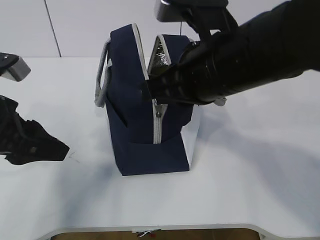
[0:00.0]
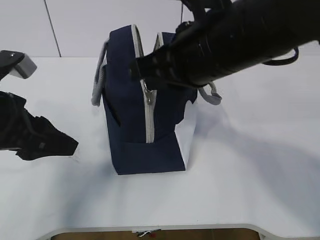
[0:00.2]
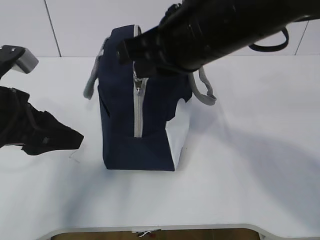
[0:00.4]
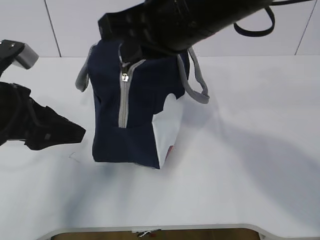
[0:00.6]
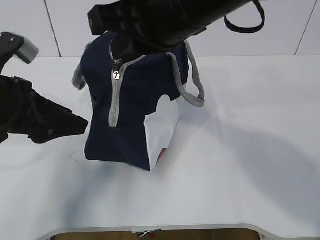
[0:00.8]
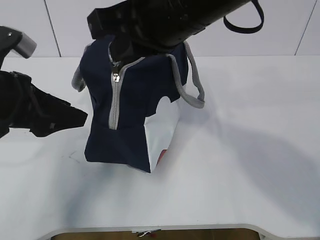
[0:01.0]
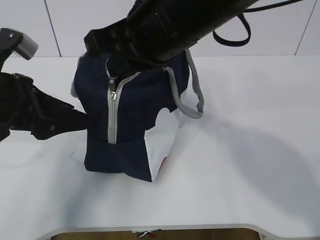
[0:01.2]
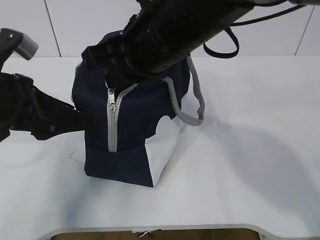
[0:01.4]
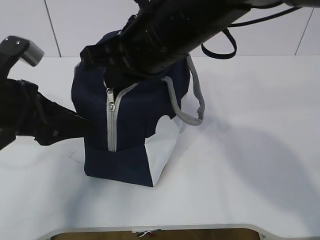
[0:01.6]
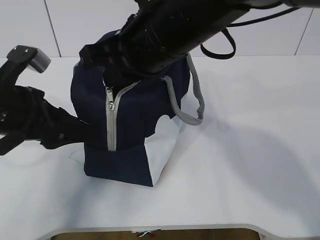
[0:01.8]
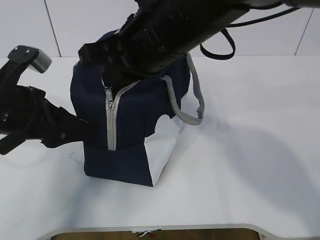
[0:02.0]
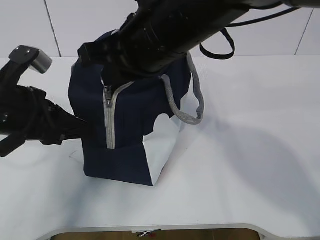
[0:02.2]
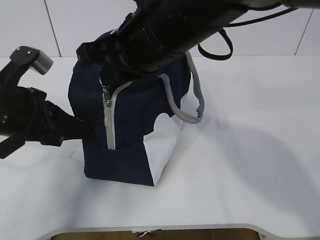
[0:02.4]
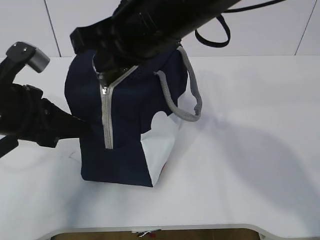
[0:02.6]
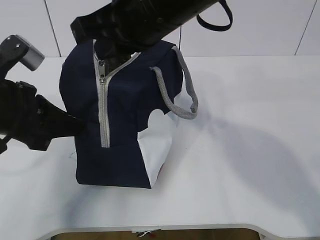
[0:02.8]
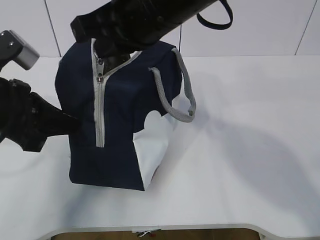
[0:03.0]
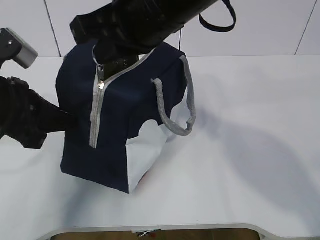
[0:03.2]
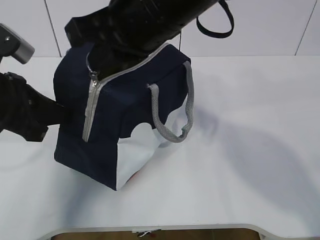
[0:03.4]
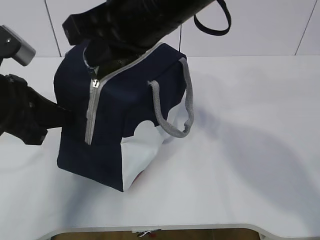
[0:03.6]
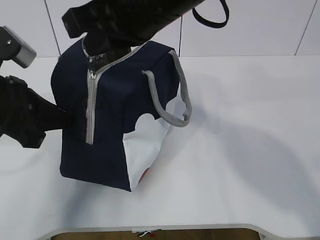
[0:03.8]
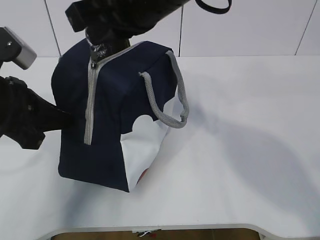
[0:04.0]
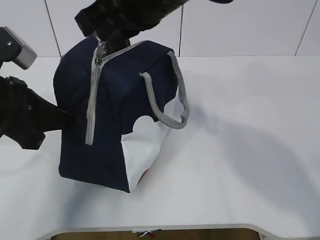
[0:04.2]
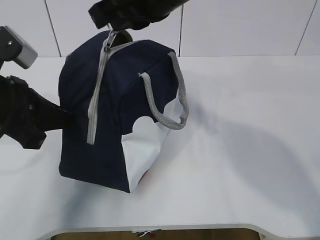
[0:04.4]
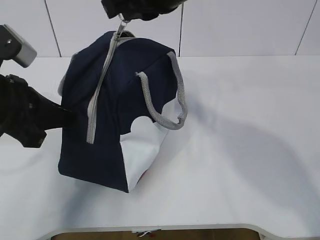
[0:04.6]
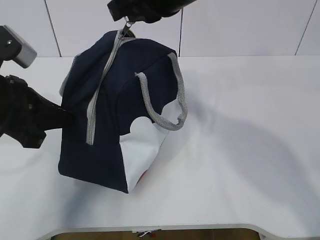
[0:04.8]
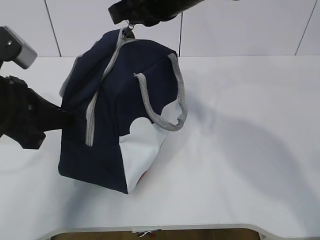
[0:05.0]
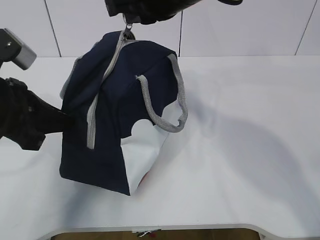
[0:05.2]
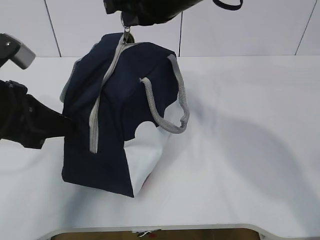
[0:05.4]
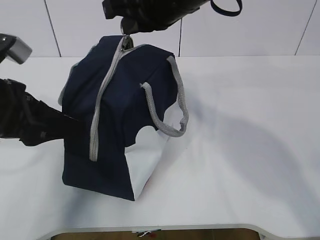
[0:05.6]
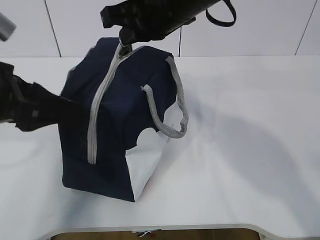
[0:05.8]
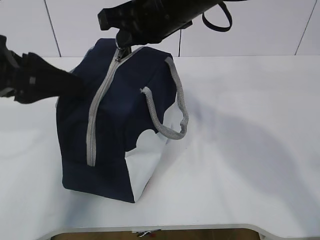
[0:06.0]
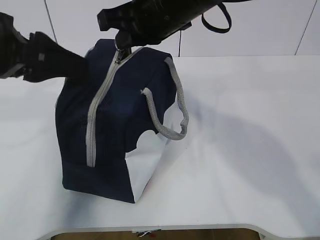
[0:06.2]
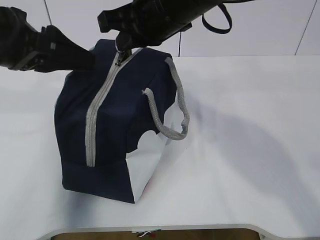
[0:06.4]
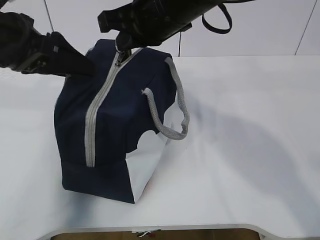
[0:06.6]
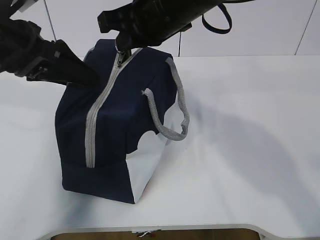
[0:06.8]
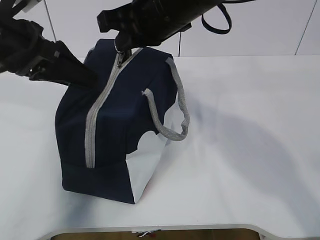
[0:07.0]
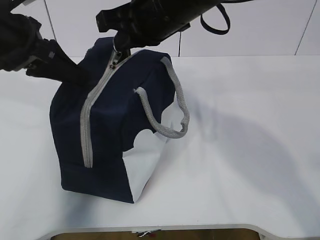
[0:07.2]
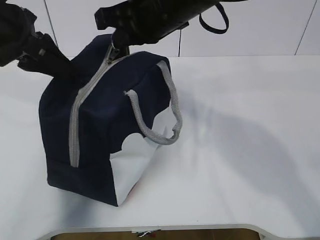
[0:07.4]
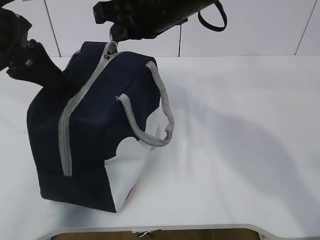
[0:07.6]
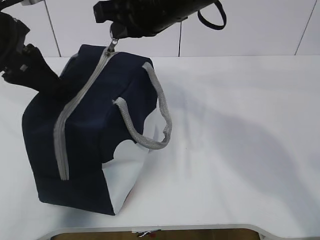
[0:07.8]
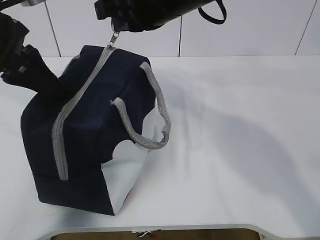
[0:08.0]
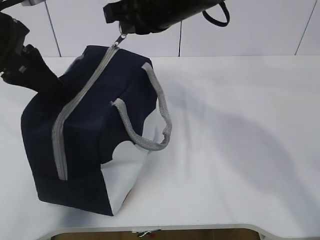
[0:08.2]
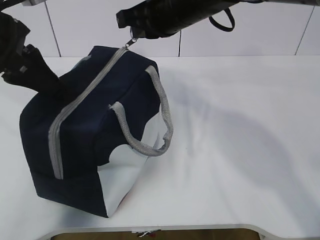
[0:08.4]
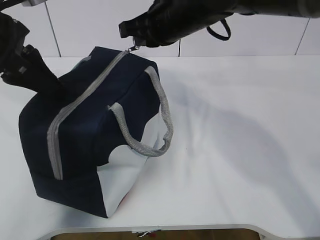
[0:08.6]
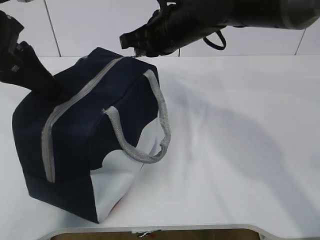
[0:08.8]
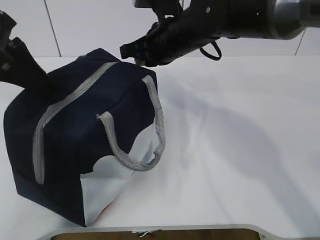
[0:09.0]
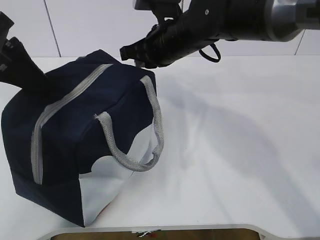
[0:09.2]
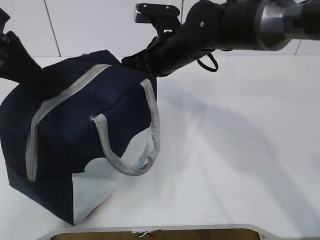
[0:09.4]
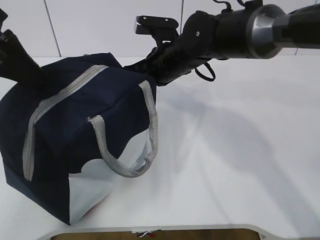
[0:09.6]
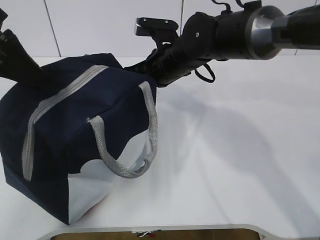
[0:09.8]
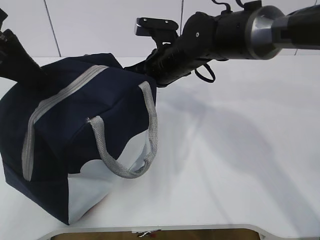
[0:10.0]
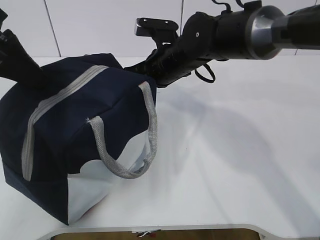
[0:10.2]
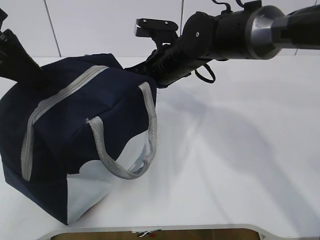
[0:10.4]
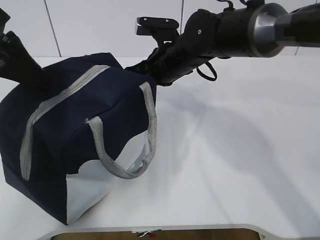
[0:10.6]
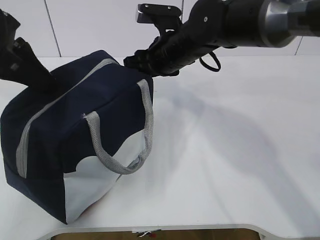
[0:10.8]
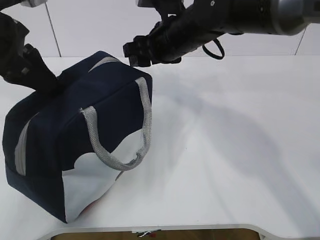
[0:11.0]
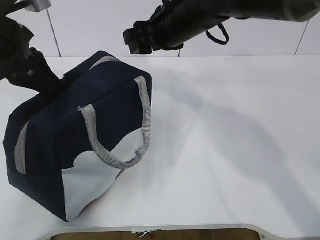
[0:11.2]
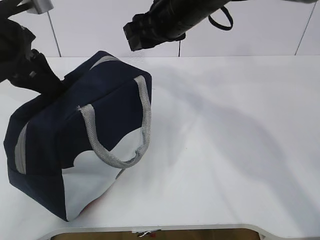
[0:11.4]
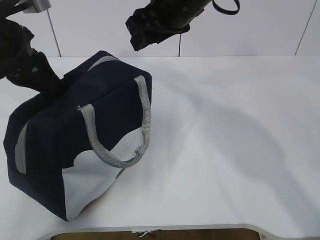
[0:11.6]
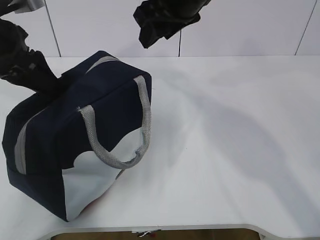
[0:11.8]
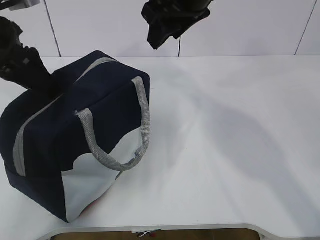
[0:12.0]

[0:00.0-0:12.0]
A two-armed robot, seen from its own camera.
Step, 0:00.8 to 0:01.8: Grab the lunch bag with your left hand.
0:00.0 to 0:01.6: The right gripper goes roughly 5 cm to the left.
0:01.6 to 0:03.0: The left gripper closes its fingers.
0:03.0 to 0:04.4: The grippers make only small movements.
0:04.4 to 0:06.0: The left gripper moves upward, roughly 5 cm, and opens up. Meanwhile the right gripper moves some 5 cm.
0:06.0 to 0:07.6: The left gripper shifts approximately 5 cm forward, and closes up.
0:07.6 to 0:09.0: The right gripper heads downward and forward, covering some 10 cm.
0:09.0 to 0:10.4: The right gripper moves about 5 cm.
0:10.4 to 0:12.0: The left gripper opens up, while the right gripper is displaced upward by some 15 cm, and opens.

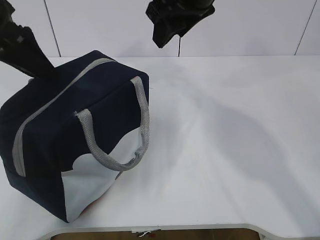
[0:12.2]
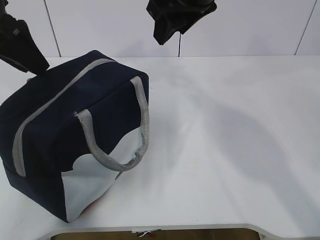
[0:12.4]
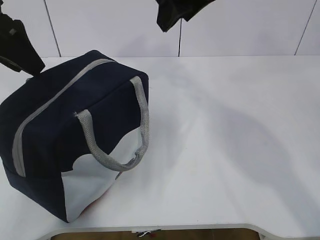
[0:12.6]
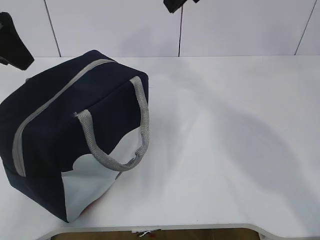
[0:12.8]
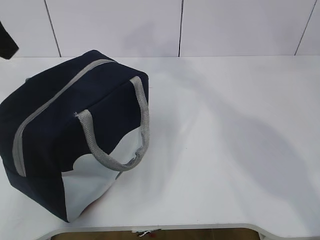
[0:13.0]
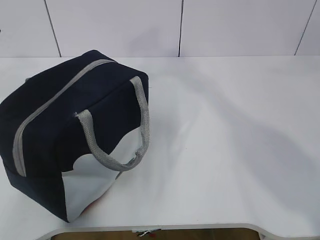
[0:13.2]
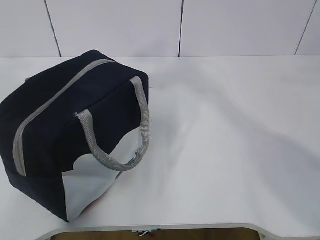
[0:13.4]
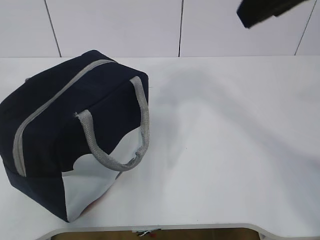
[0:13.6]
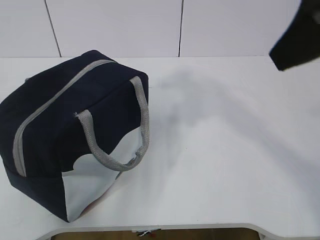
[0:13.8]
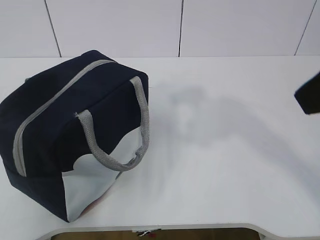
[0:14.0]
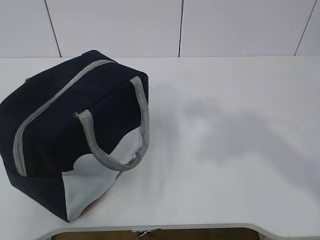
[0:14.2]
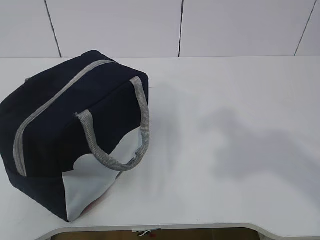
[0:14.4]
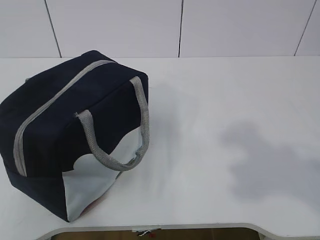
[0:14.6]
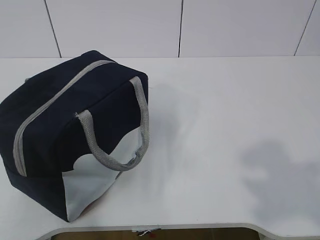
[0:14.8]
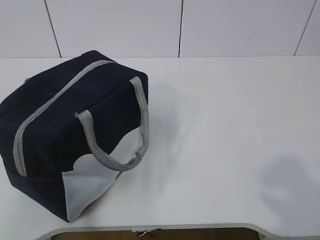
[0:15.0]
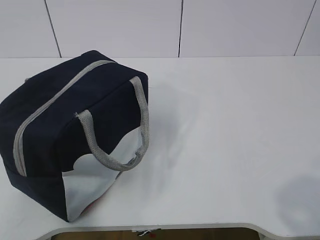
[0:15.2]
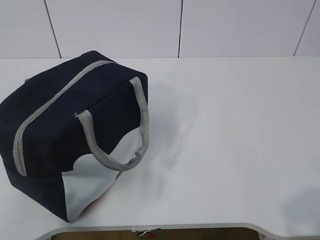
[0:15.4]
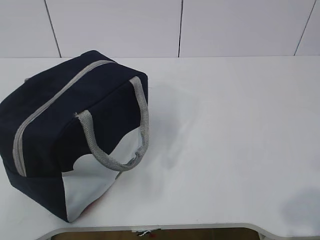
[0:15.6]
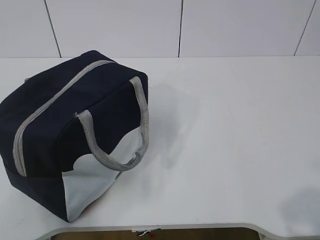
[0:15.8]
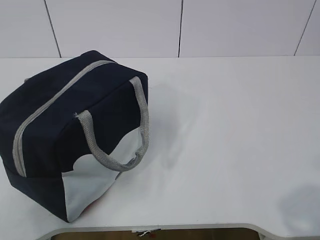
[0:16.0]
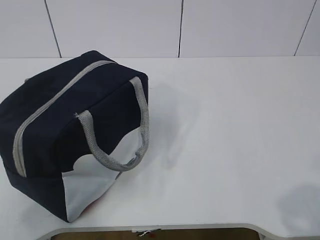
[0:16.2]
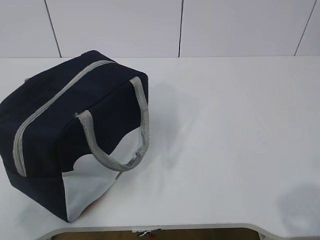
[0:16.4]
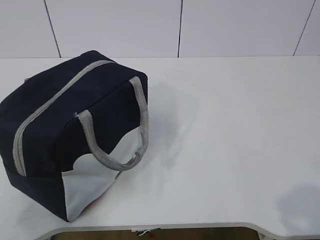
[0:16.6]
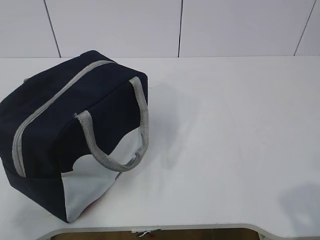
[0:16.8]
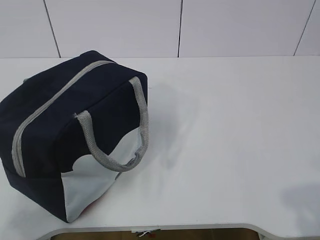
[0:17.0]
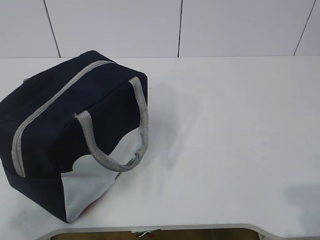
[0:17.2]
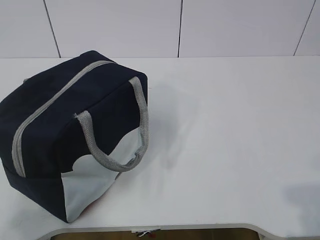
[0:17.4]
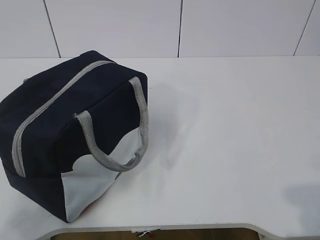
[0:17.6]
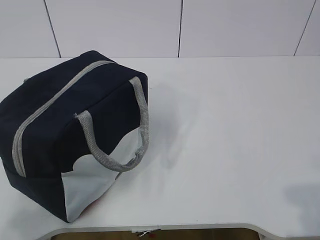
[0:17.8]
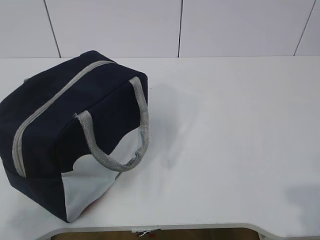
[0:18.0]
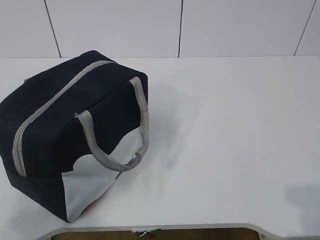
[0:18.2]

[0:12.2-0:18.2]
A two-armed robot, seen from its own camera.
0:12.2 to 0:13.8: The left gripper goes approximately 20 cm backward and upward, while the right gripper travels backward and to the right by some 20 cm.
0:13.8 to 0:15.2: The right gripper moves backward, to the right and downward, approximately 25 cm; the left gripper shifts some 20 cm backward and downward.

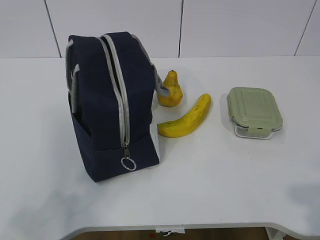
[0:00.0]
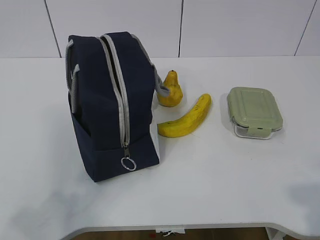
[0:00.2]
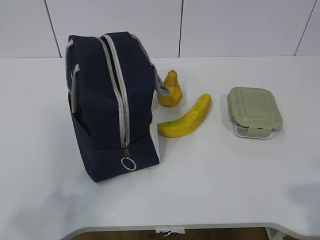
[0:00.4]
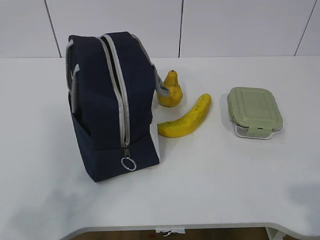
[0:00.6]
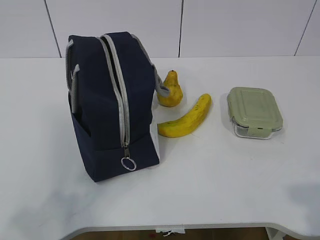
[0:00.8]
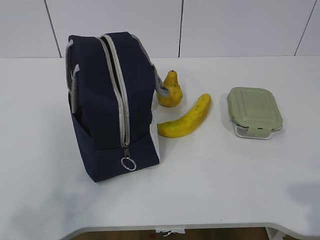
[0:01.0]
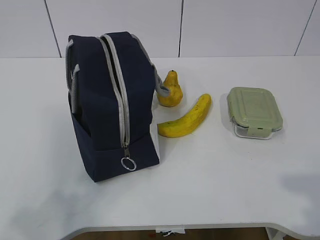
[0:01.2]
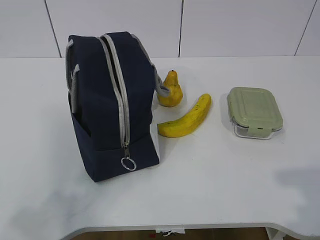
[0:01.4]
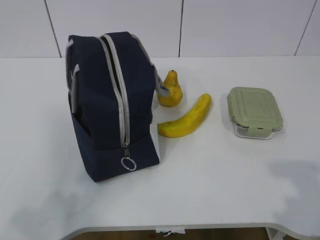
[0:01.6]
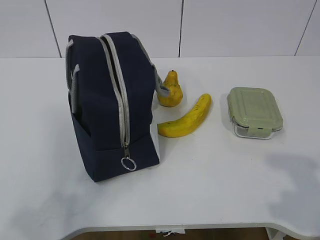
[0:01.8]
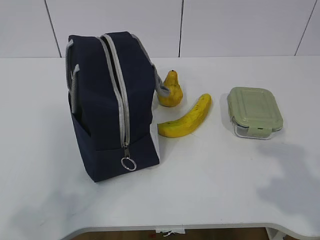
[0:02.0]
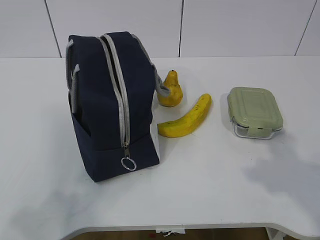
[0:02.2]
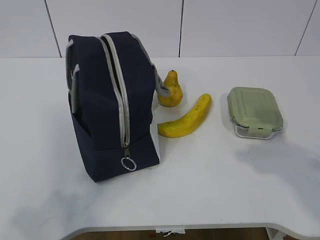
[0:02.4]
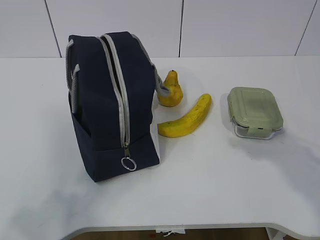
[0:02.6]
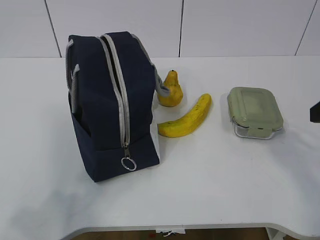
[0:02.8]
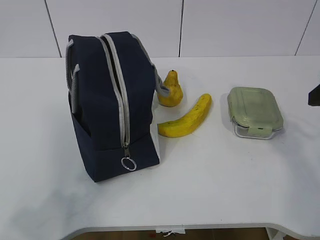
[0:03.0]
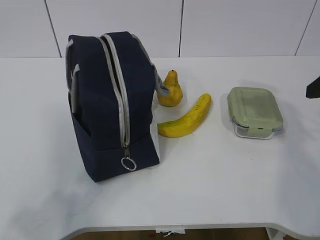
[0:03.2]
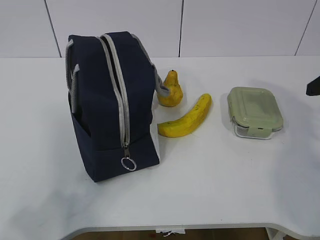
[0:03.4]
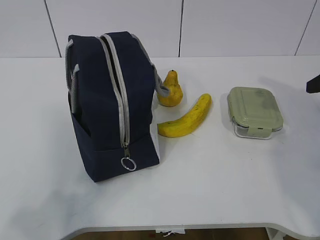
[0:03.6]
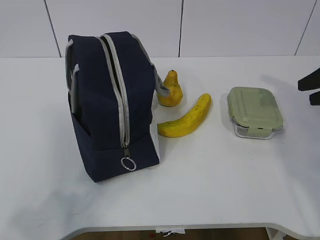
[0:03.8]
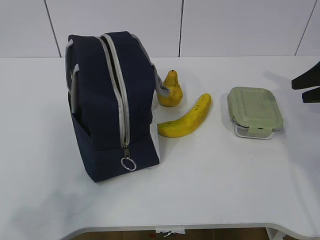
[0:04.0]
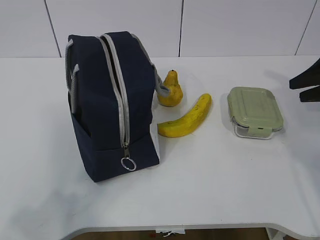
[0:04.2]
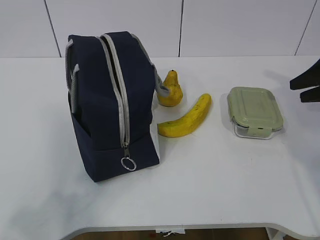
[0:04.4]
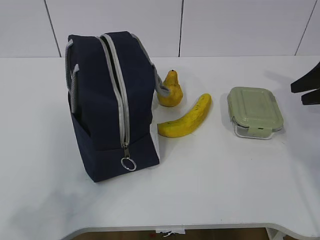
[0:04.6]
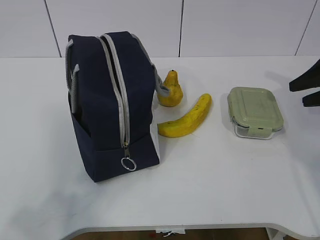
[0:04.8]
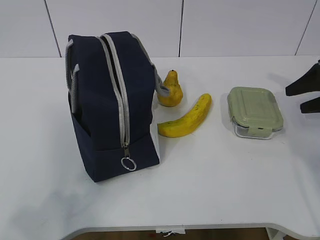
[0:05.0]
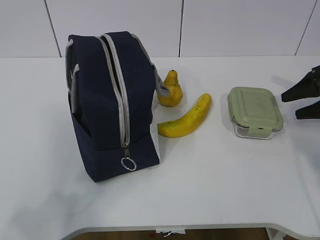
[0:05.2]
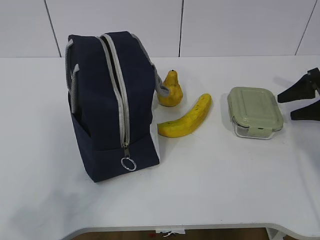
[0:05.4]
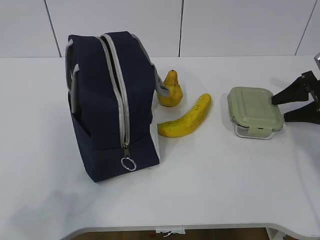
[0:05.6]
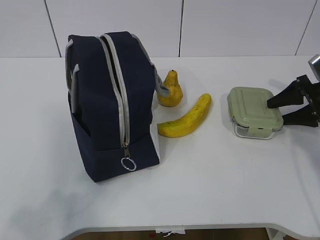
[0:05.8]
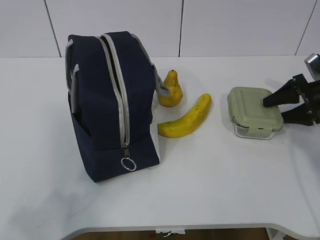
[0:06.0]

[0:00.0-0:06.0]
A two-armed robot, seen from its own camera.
Step, 0:00.0 to 0:05.8: Grab the lunch box with your right hand.
0:01.6 to 0:03.0: The right gripper shifts roughly 20 cm forward.
0:03.0 to 0:04.4: The right gripper travels forward, to the right and downward by some 20 cm.
0:04.4 to 0:06.0: The right gripper is displaced downward by roughly 10 cm.
